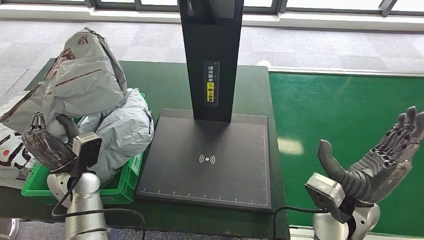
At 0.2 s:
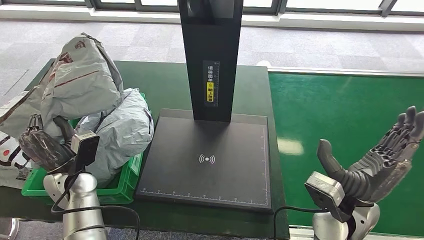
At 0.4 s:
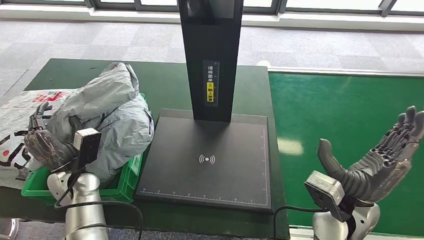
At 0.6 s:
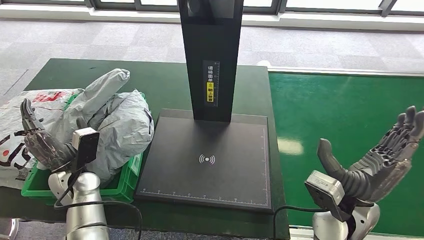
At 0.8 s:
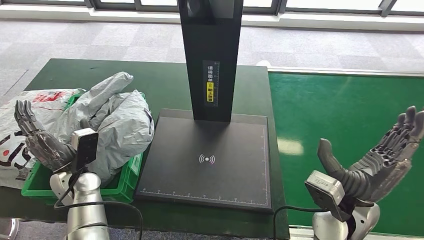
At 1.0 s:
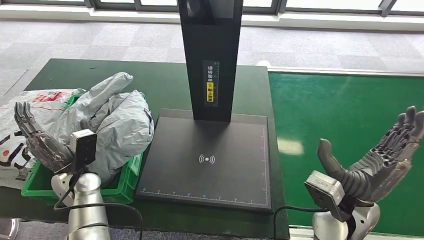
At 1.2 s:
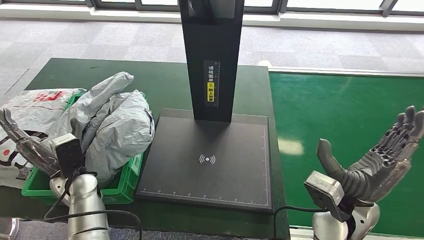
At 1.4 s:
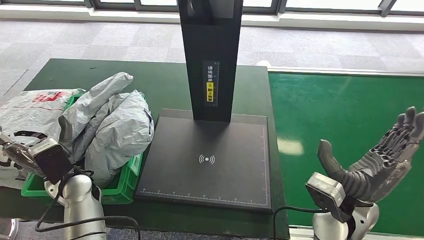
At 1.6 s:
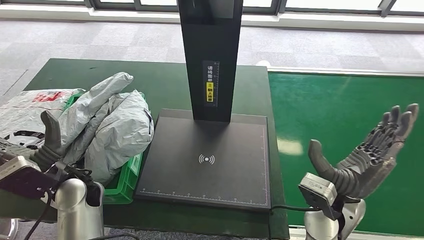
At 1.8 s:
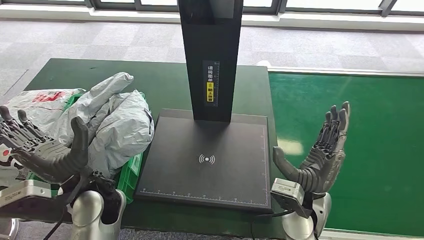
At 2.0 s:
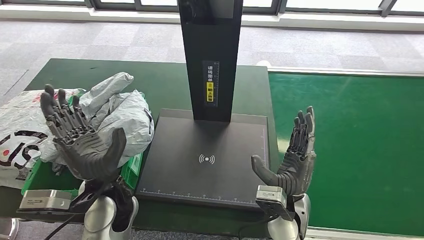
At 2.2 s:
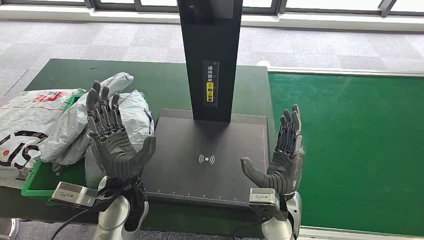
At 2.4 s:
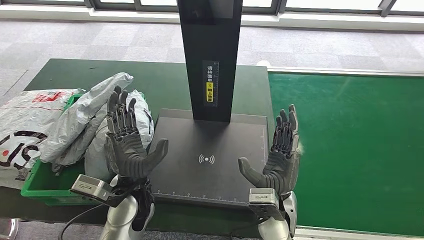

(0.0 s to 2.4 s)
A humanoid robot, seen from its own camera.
Step, 0.0 s - 2.4 s: Place the parcel into the delivery box.
0.0 s - 1.2 s: The hands move only a little.
1.2 s - 2.4 s: The right hand heads to the left and downward, covering about 15 cm. The left hand is displaced to the right and upward by roughly 15 cm.
